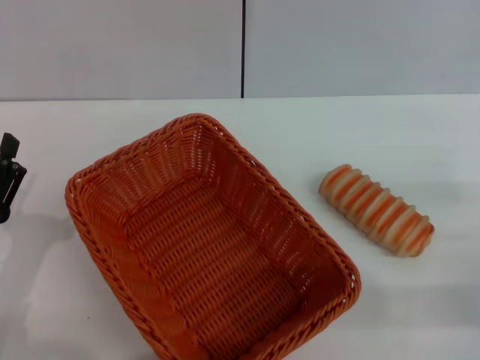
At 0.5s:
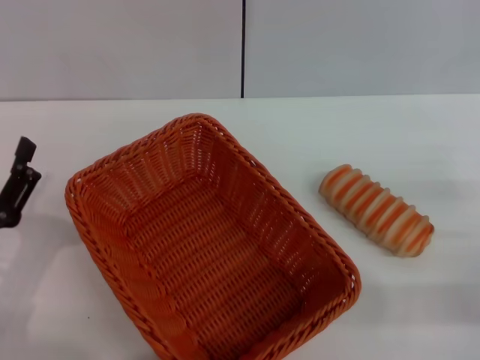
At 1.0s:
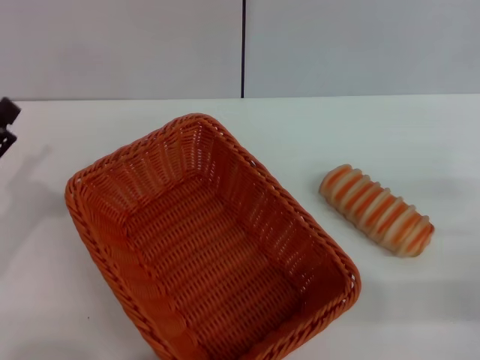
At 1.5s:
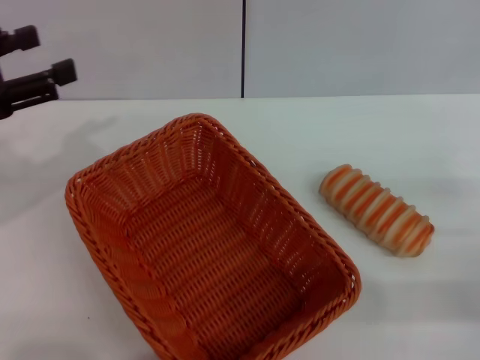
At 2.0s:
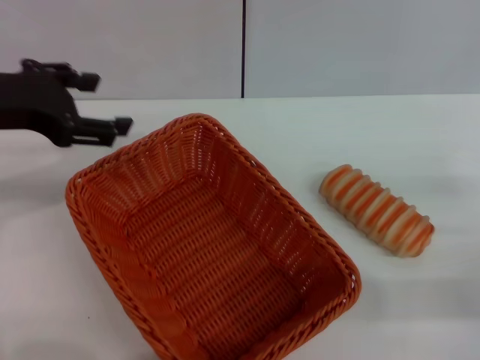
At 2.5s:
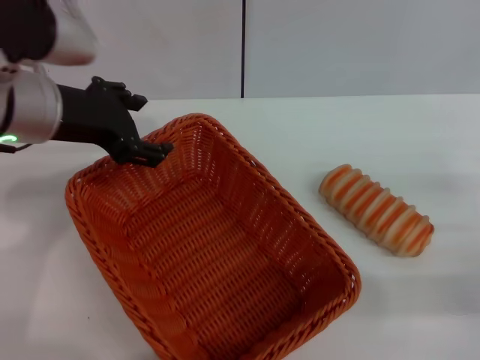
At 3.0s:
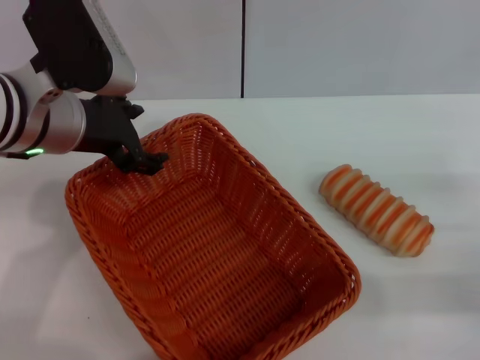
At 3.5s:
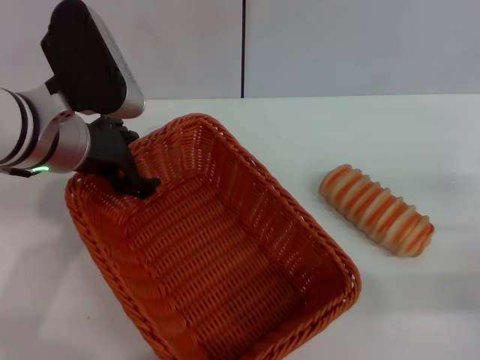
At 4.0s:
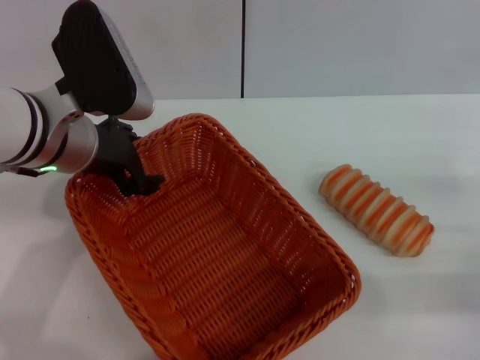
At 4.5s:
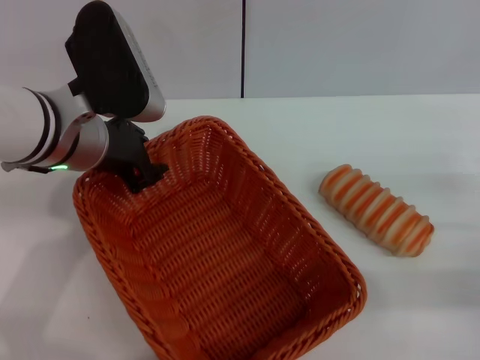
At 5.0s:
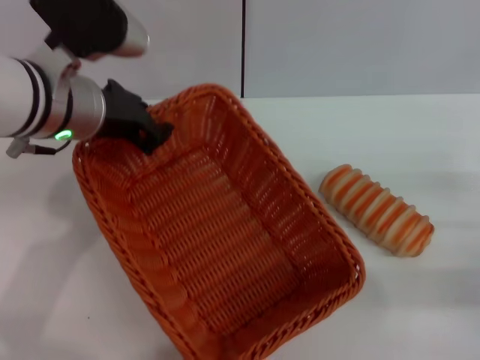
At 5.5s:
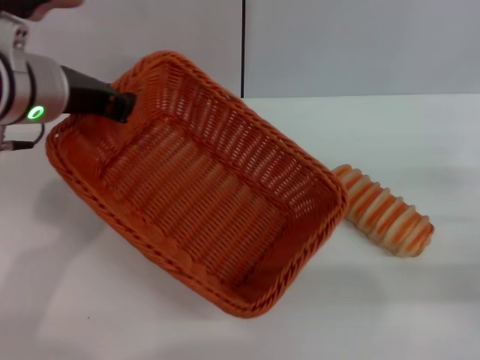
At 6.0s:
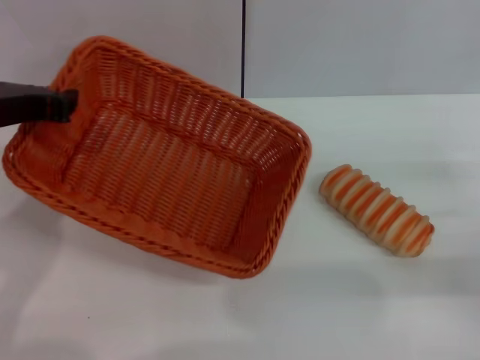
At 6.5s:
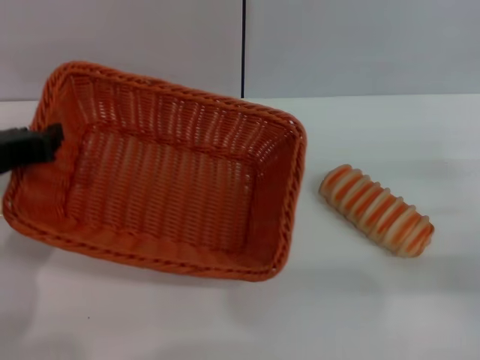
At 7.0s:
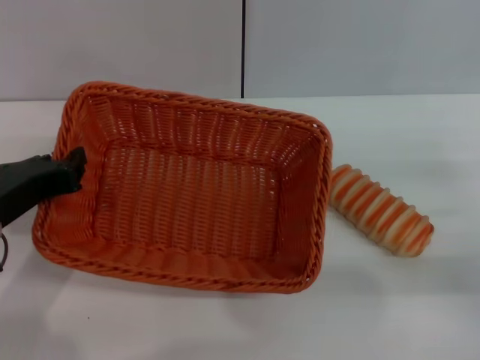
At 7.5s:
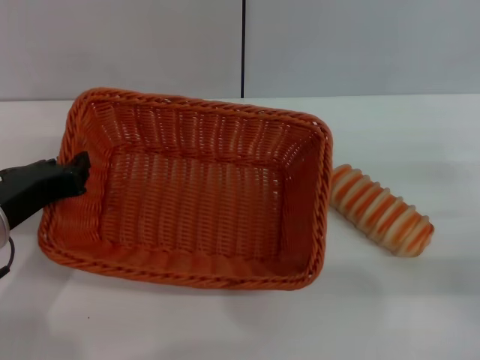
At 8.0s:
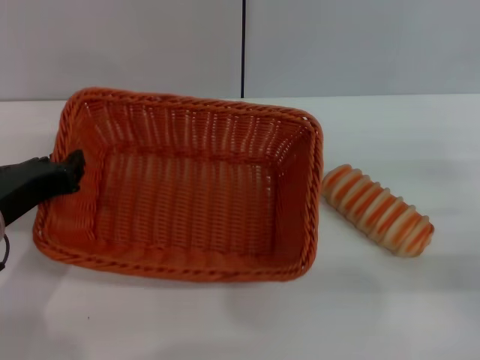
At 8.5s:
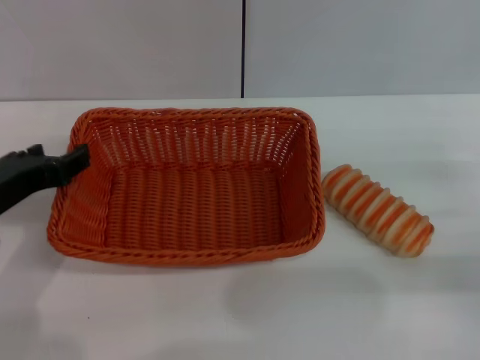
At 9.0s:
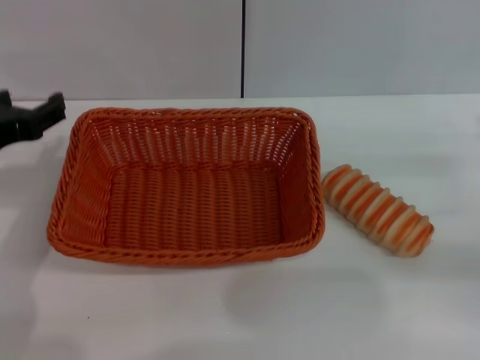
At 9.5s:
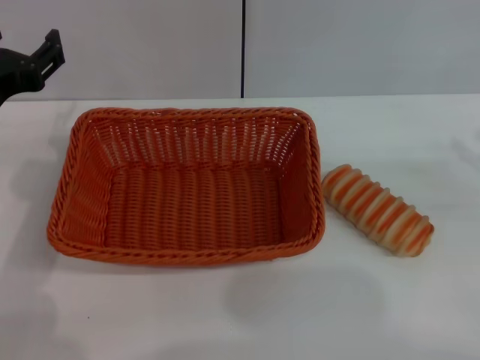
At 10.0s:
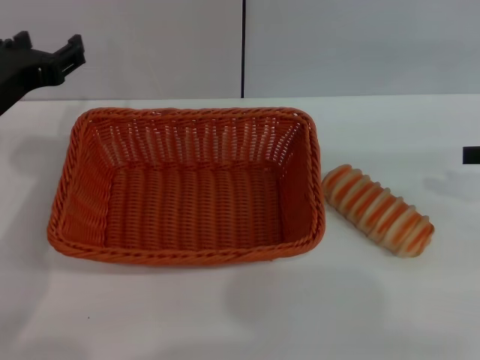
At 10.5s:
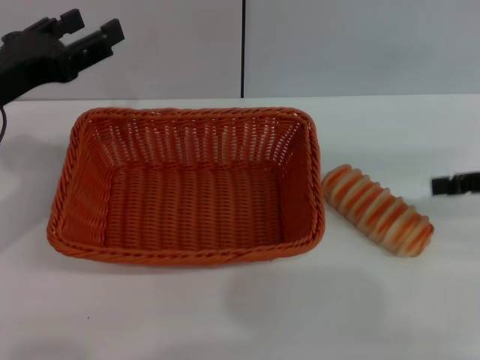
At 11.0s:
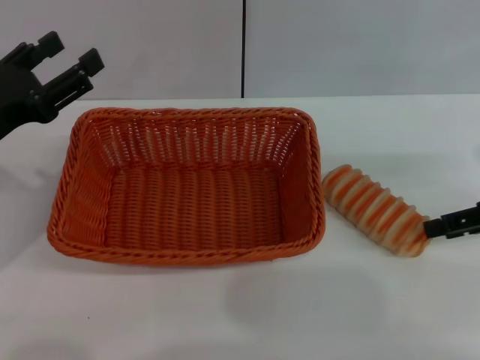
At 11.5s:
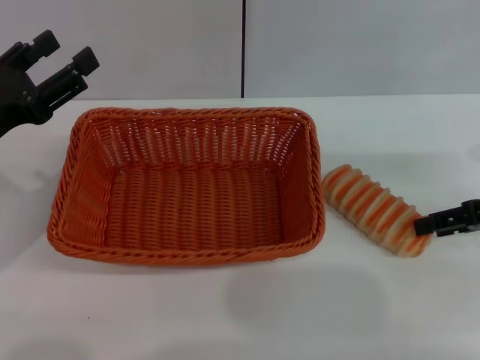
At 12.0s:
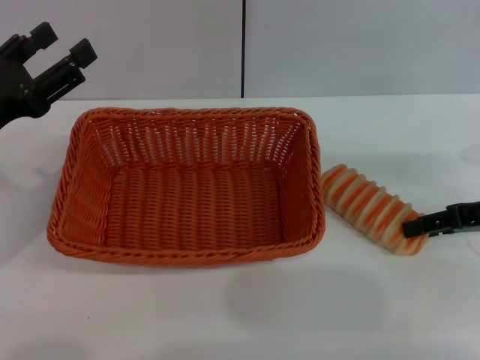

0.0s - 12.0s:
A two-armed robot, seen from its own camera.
Step, 0.0s - 5.0s: Pick up the light basket with the left gripper.
Step, 5.5s - 8.5s: Place the light basket in the center of view with the left gripper.
0.0s - 2.0s: The left gripper travels upward and forward by some 25 cm.
2.0s - 4.0s: The left gripper is displaced to the right and downward by approximately 10 cm.
4.0s - 6.0s: The left gripper travels to the left by approximately 5 cm, and closes.
6.0s - 8.0s: The left gripper shifts about 10 cm backward and downward.
8.0s - 10.0s: The right gripper shifts approximately 10 cm upward and forward. Meanwhile the left gripper is displaced forward by about 5 cm, and opens its fingers.
10.0s - 12.0s: The right gripper shifts some 10 cm downward and to the left. The left gripper shifts by about 5 cm.

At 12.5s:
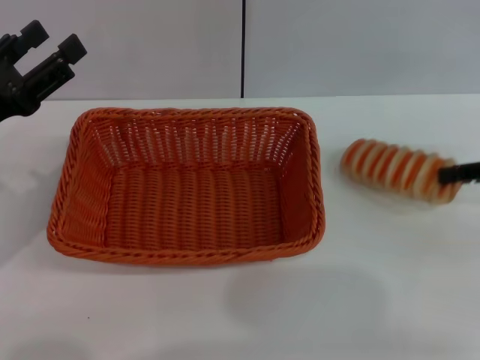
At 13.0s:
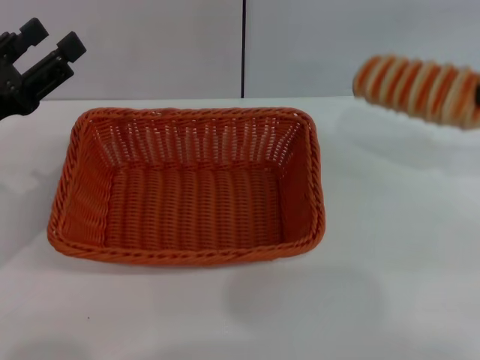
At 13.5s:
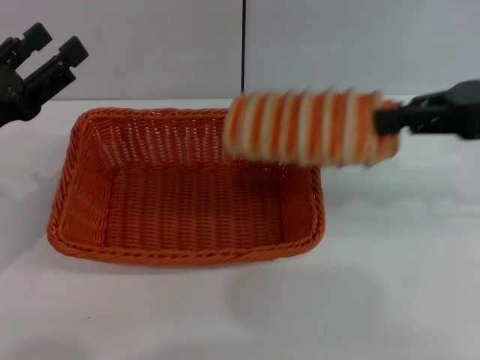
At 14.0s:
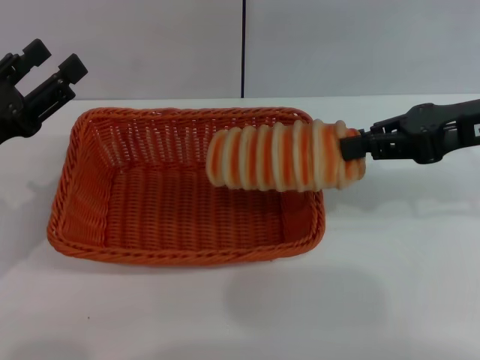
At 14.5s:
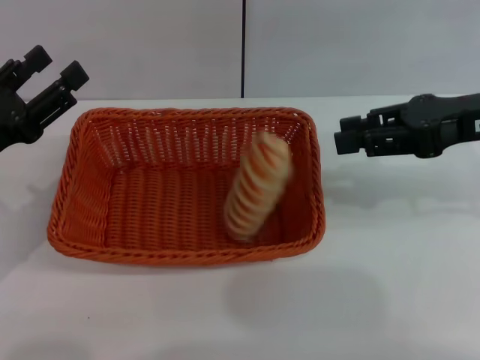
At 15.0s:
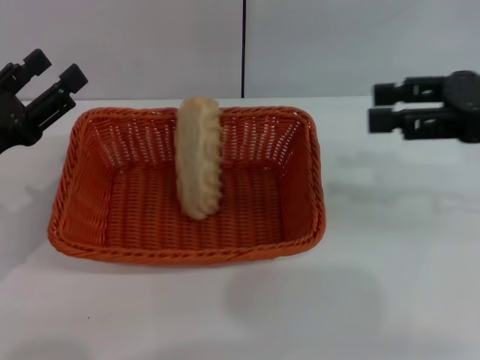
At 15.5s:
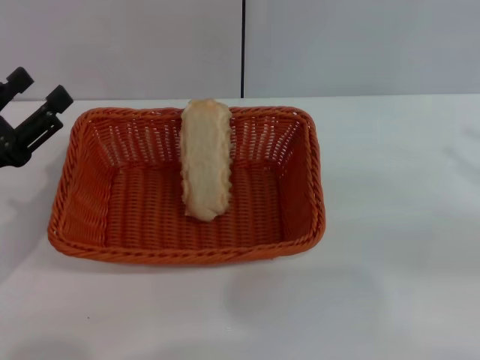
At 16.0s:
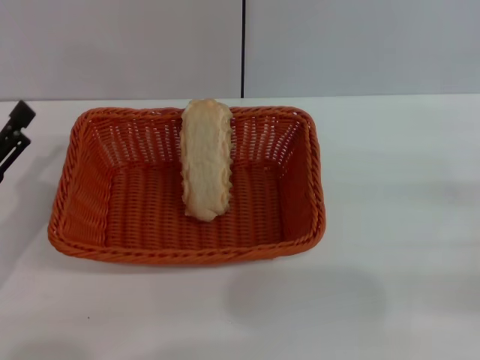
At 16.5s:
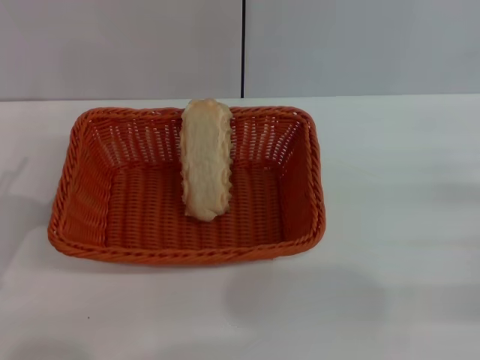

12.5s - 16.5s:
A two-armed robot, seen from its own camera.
Step, 13.0s - 14.5s: Place the long bread into the light basket with the right gripper.
12.5s - 14.5s: The right gripper goes approximately 10 cm to the left and upward.
14.5s - 16.5s: The right gripper heads downward, to the right and backward, covering some 20 cm, and opens, while the left gripper travels backward and downward by approximately 10 cm.

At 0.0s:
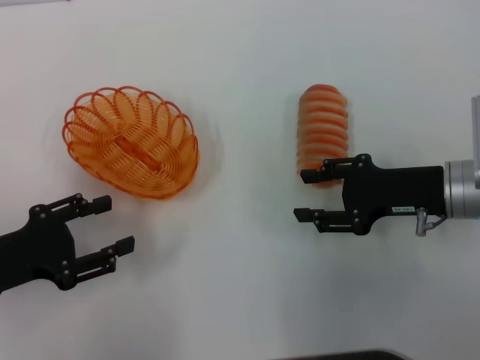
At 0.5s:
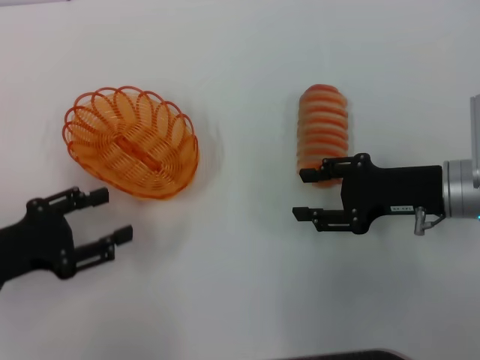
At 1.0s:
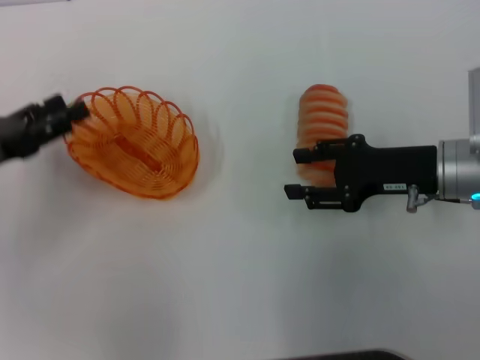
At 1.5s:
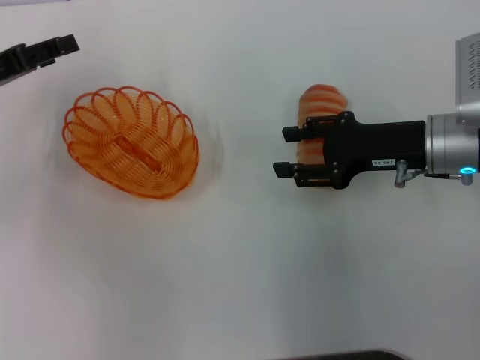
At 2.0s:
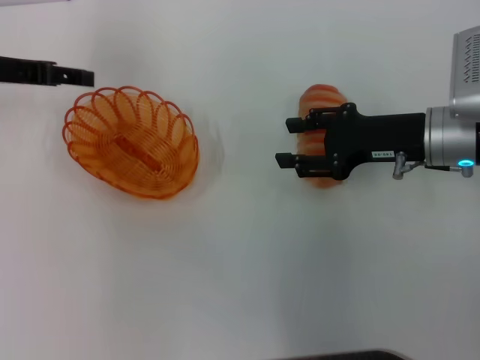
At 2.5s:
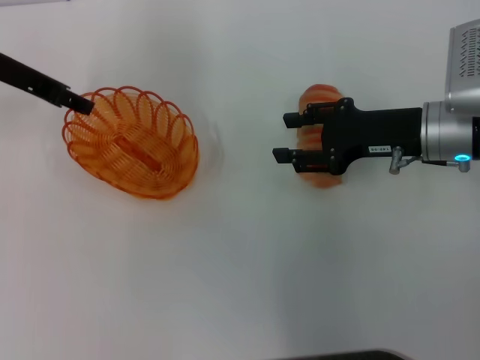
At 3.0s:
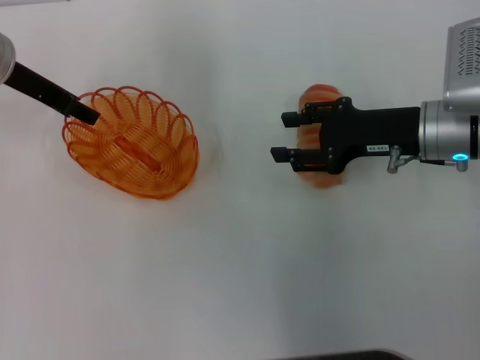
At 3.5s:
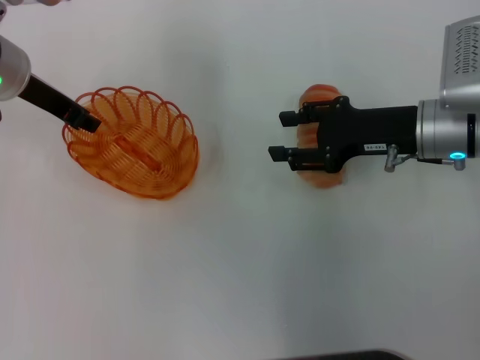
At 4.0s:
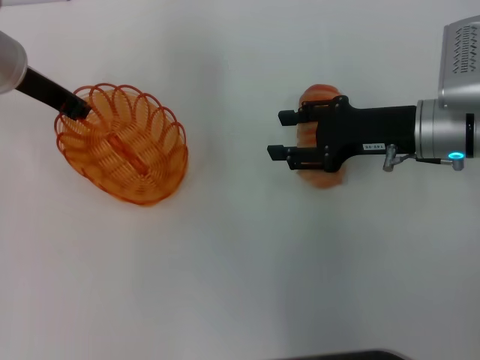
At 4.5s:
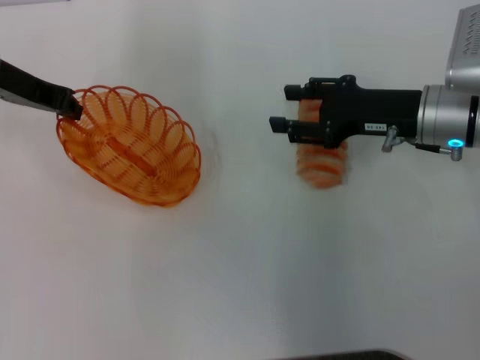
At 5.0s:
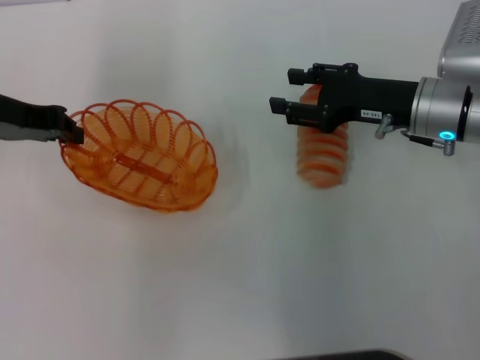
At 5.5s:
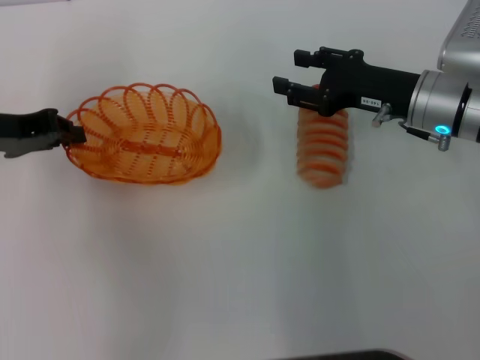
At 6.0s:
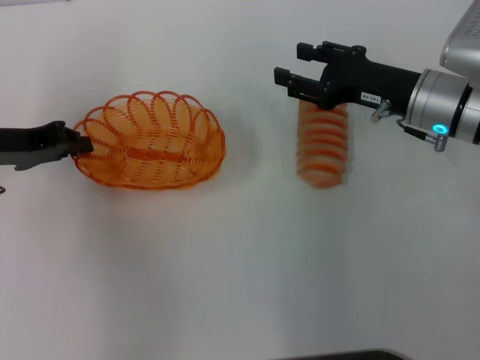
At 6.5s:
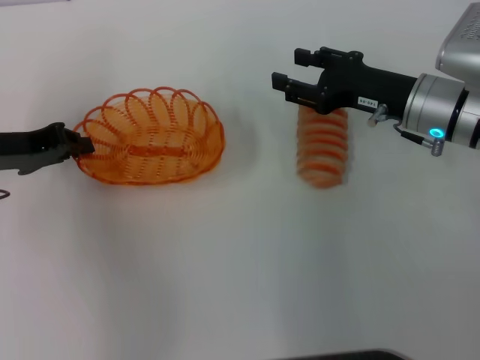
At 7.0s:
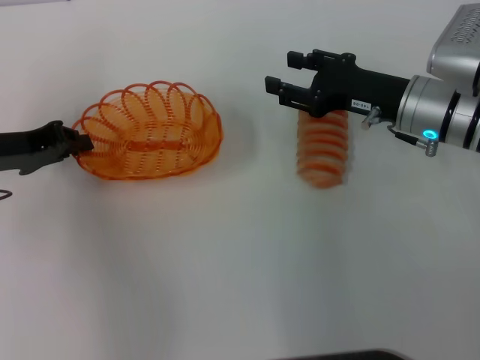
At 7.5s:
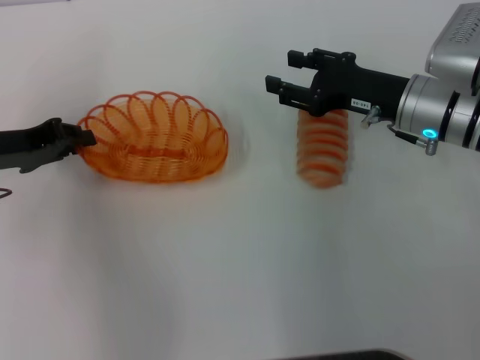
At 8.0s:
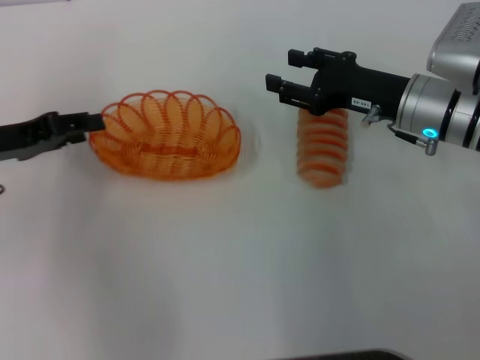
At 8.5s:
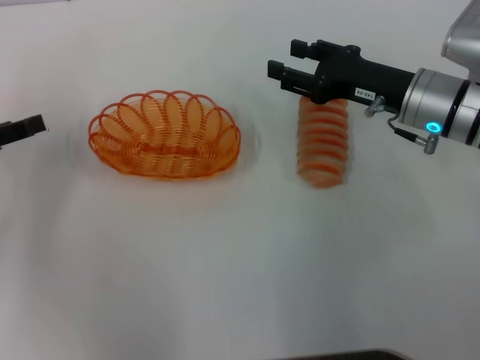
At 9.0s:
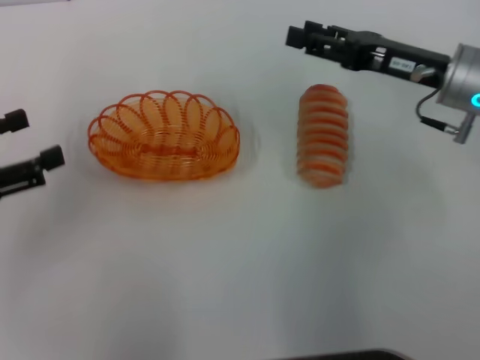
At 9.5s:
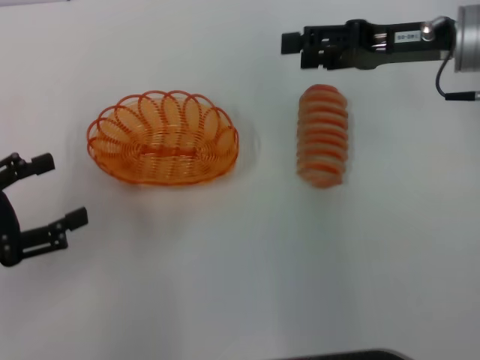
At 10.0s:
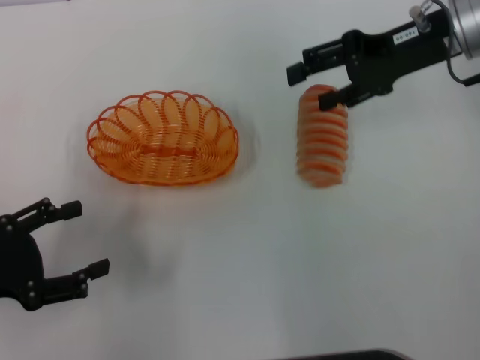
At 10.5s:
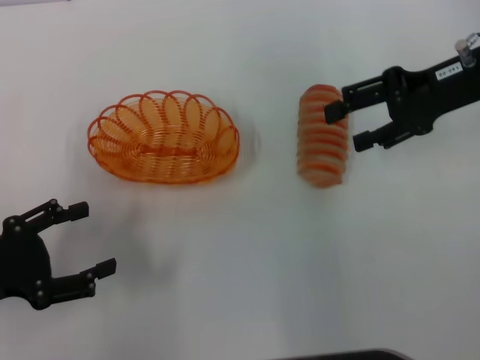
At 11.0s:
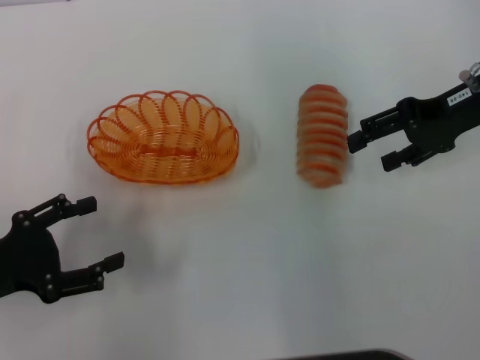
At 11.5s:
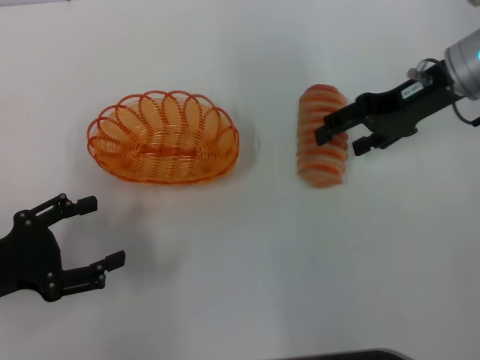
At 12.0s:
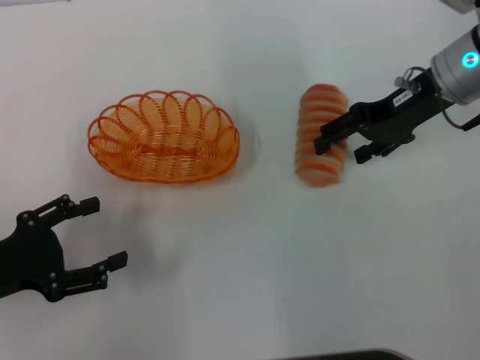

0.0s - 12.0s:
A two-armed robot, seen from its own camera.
Step, 0.0s - 4.5s: Pick up the basket with the left gripper.
Step, 5.0s - 8.0s: Place the basket in the center of view with the left gripper.
0.0s - 2.0s: The left gripper heads forward and upward, covering about 20 cm. Meanwhile the right gripper moves roughly 5 cm.
2.0s - 4.0s: The left gripper shifts roughly 5 cm to the right, and closes up.
4.0s - 6.0s: The left gripper shifts roughly 10 cm backward and to the left.
6.0s - 8.0s: The left gripper opens its fingers.
8.0s - 10.0s: The left gripper travels backward by about 10 cm, and opens, while the right gripper moves upward, roughly 10 cm, and opens up.
10.0s - 12.0s: There are only small adjustments of the grippers.
